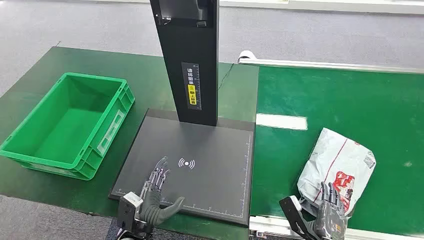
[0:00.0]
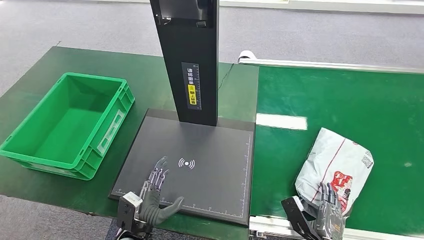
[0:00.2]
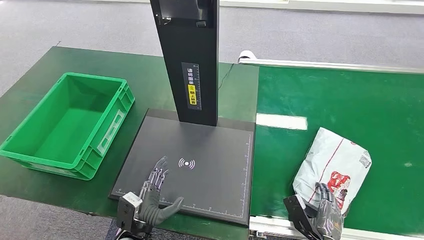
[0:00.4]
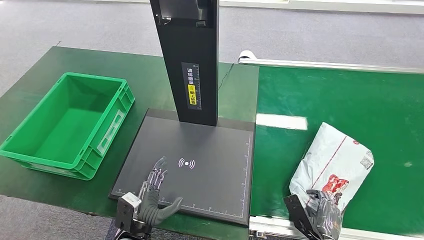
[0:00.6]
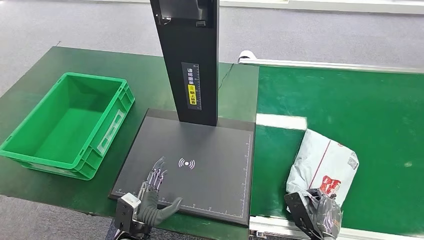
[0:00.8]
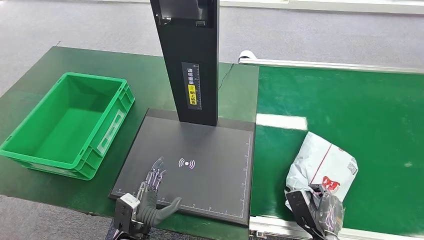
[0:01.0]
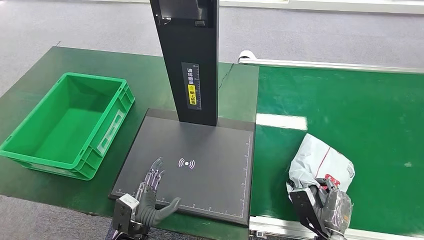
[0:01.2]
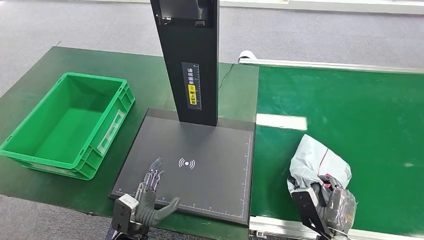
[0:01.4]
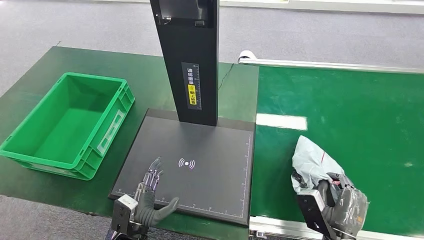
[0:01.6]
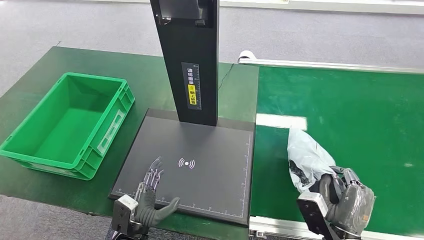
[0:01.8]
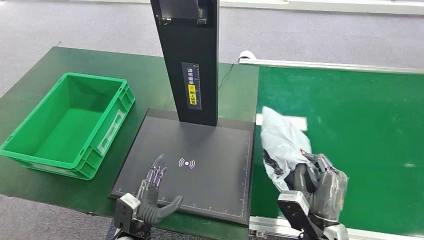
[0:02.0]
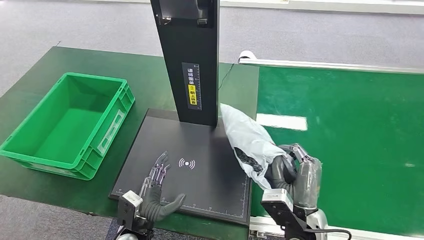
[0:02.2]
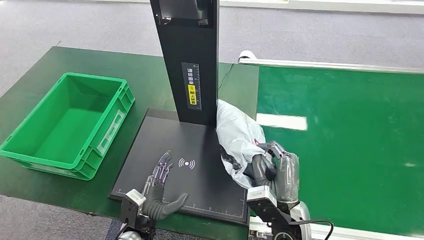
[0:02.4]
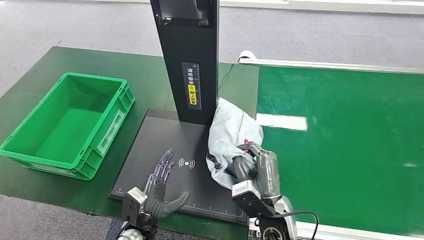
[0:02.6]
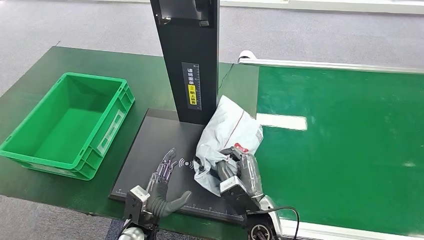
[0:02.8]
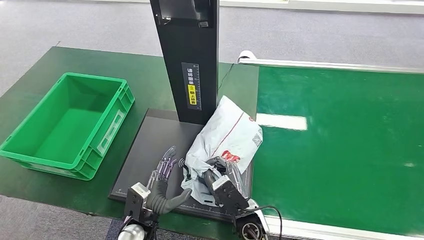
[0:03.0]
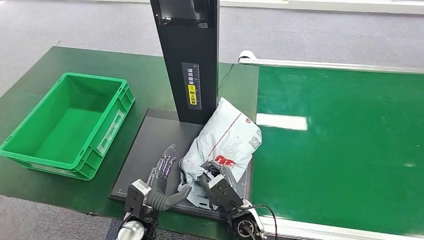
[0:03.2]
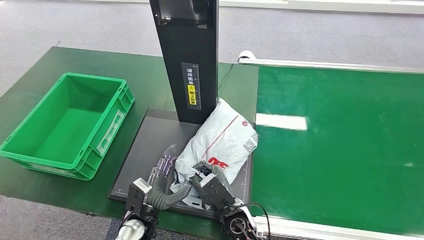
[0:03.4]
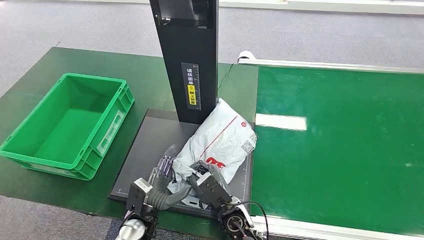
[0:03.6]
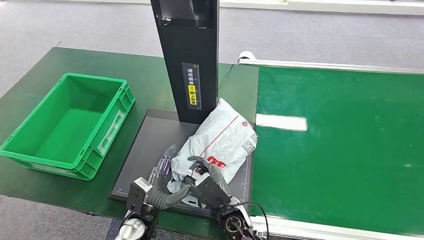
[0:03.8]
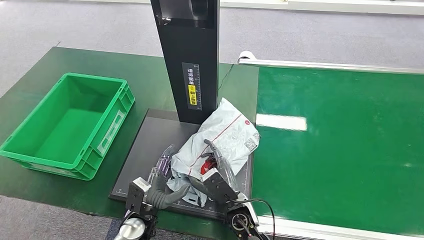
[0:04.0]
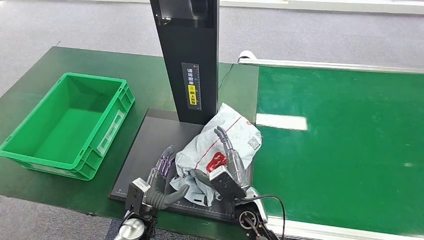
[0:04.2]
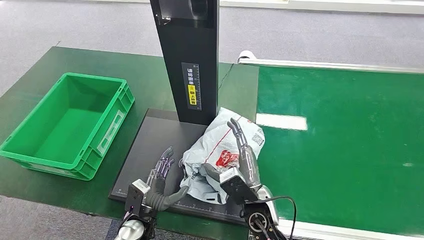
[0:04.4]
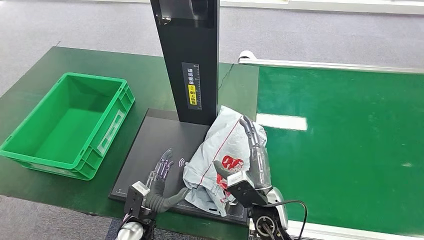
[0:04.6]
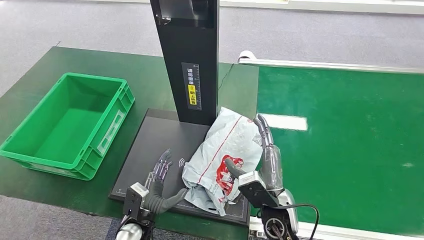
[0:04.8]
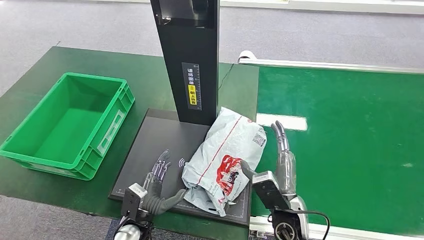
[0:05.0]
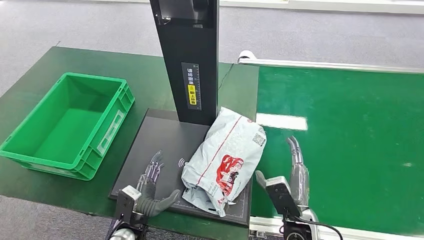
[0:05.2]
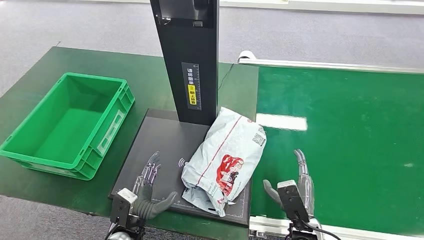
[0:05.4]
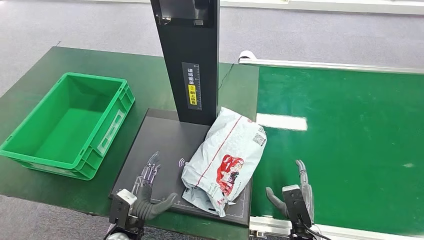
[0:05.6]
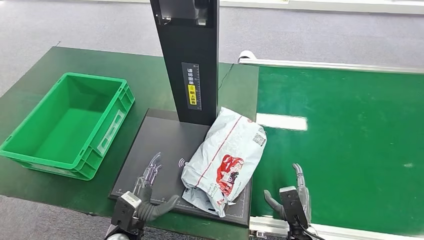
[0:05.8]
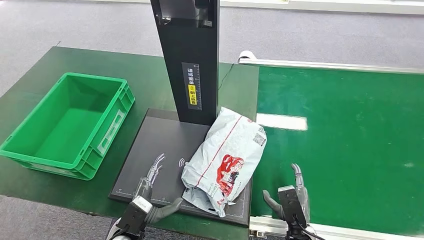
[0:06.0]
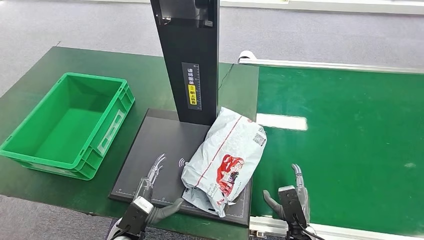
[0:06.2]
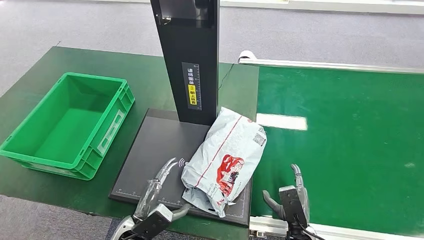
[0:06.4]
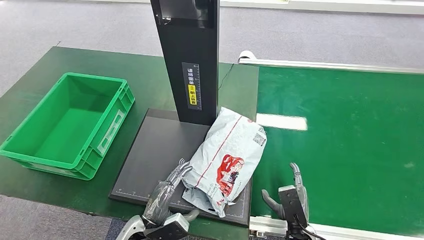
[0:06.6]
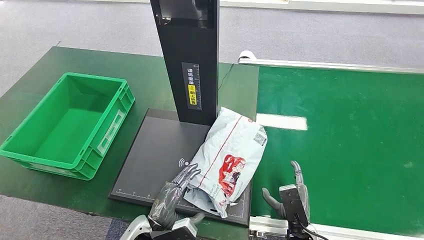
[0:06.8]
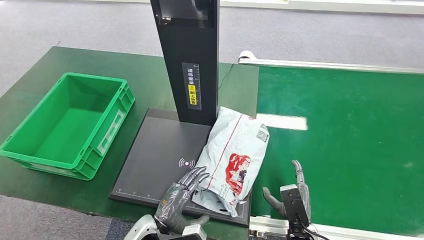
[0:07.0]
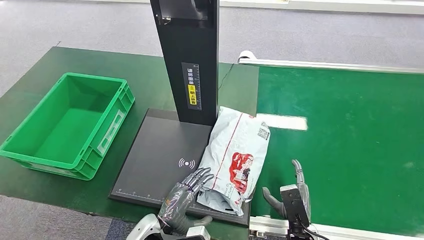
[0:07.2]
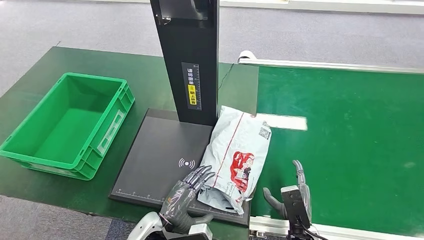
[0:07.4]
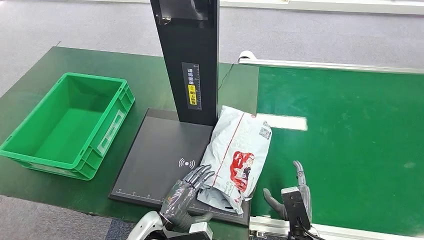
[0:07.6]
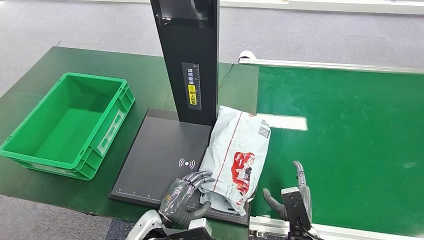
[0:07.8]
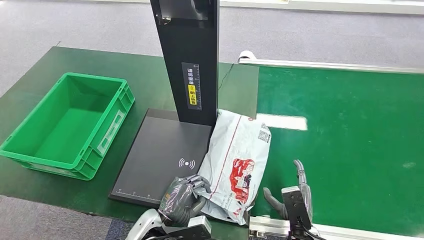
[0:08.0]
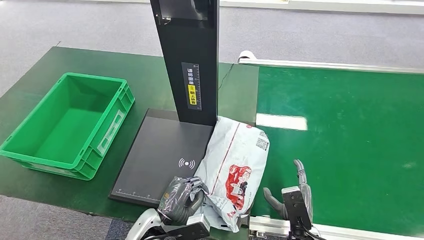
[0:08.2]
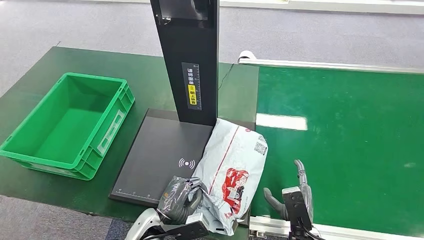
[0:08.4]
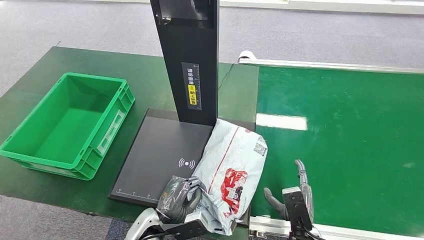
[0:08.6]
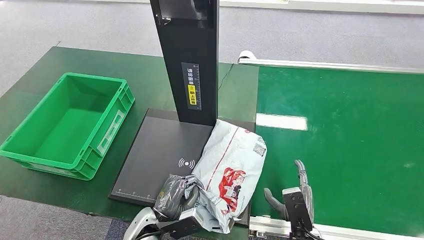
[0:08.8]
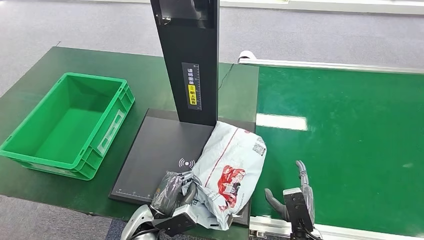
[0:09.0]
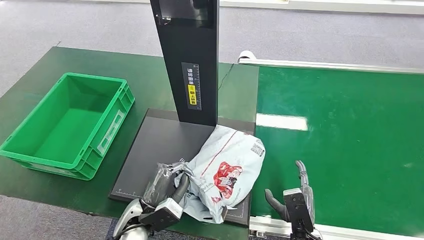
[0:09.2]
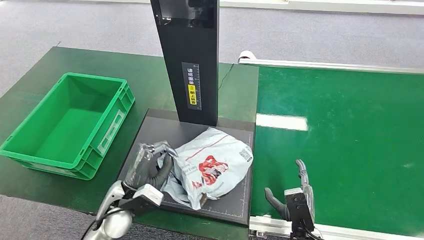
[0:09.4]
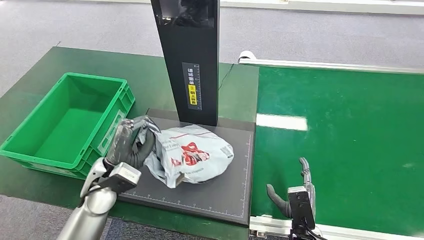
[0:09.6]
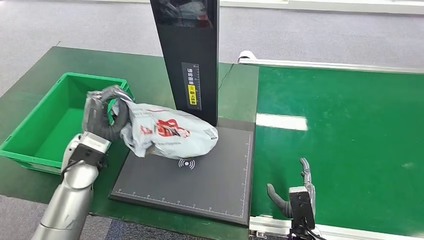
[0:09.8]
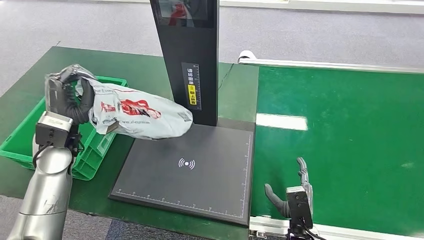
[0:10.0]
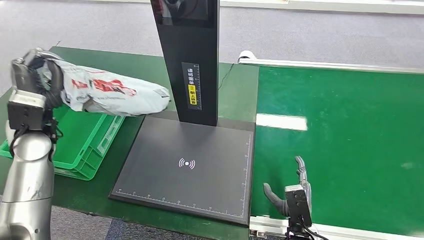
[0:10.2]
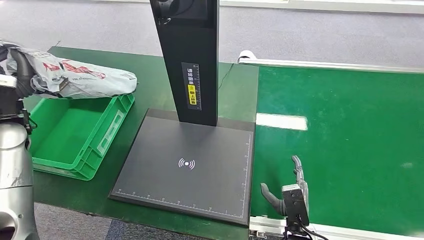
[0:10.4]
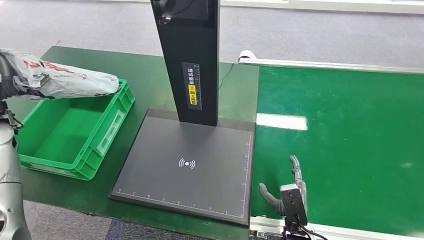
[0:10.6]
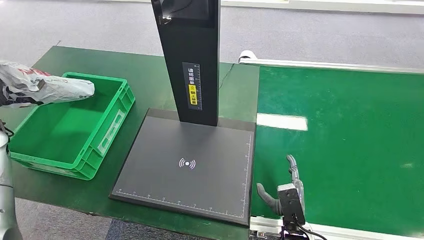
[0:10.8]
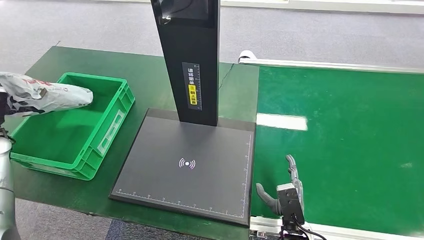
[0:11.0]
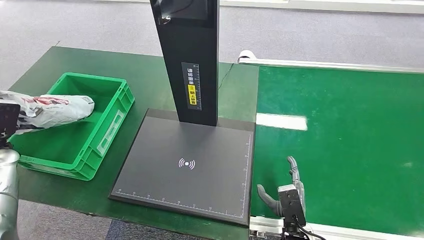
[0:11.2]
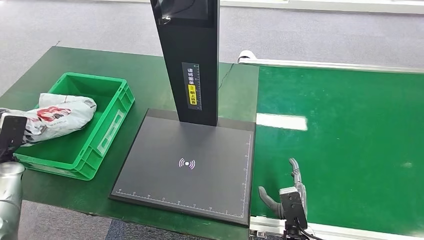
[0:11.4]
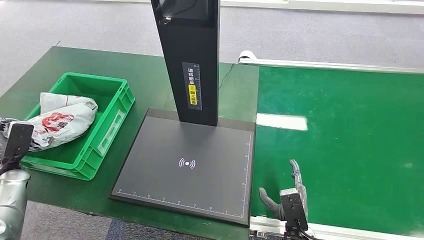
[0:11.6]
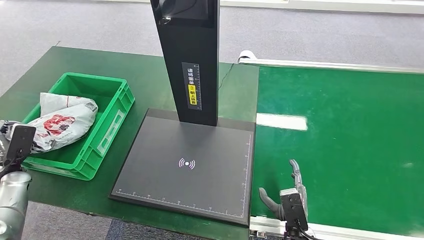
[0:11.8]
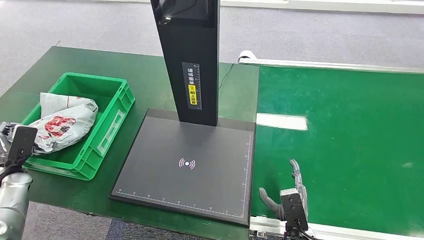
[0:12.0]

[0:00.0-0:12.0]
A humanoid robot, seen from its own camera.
Task of the whole recording: Weigh the package on the weighing device and place it in the left basket.
Step, 0:00.0 to 0:02.0: Pick up the package from the conveyor belt.
Step, 0:02.2 to 0:05.2: Place the package onto the inbound machine.
Step, 0:05.6 to 0:09.8: Pick up the package from the inbound machine.
0:01.6 to 0:03.0: The right hand shifts roughly 20 cm to the left.
0:03.0 to 0:04.4: The hands make only small movements.
0:04.4 to 0:06.0: The right hand goes approximately 15 cm to the right, downward and backward.
0:06.0 to 0:07.6: The left hand is displaced to the right by approximately 5 cm.
0:07.6 to 0:09.0: There are only small adjustments of the hands.
0:09.0 to 0:10.4: The left hand is displaced to the left, upward and forward by approximately 40 cm.
0:10.4 to 0:12.0: The left hand goes some 20 cm downward.

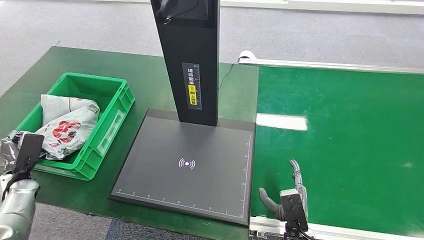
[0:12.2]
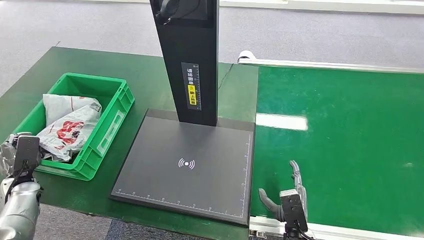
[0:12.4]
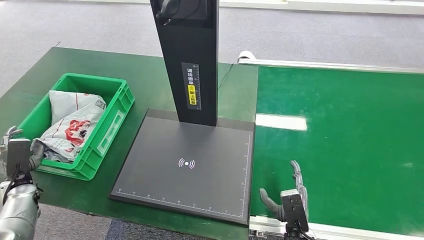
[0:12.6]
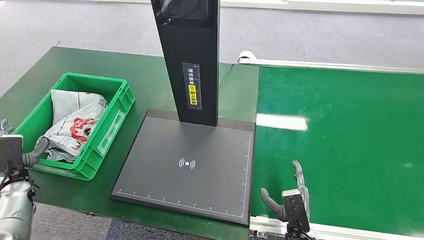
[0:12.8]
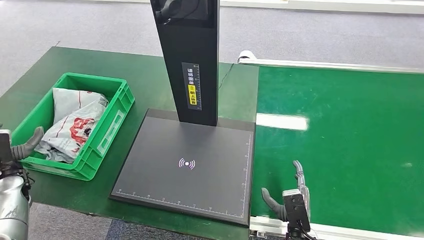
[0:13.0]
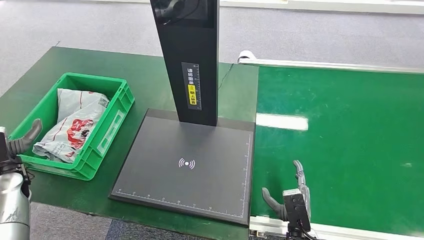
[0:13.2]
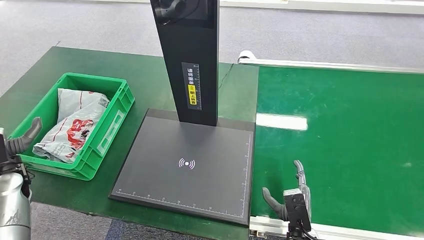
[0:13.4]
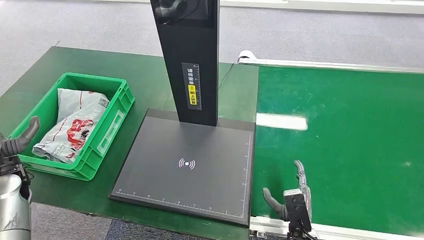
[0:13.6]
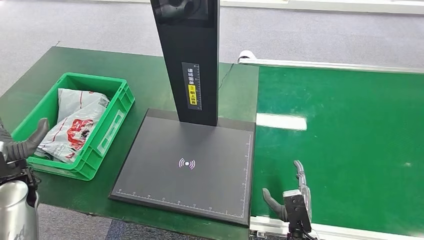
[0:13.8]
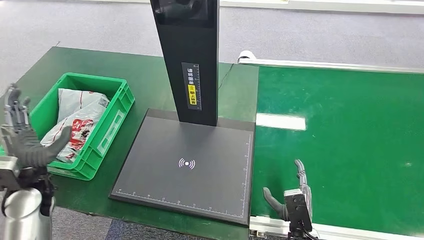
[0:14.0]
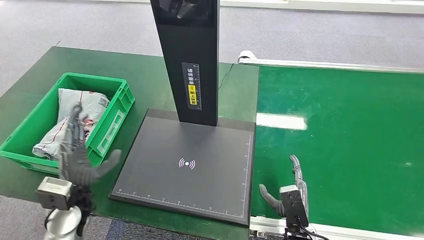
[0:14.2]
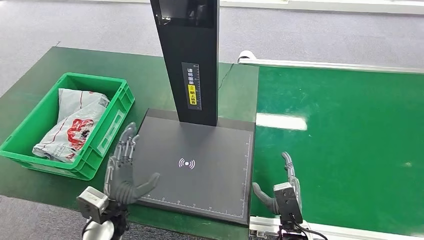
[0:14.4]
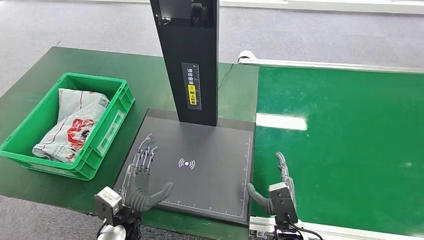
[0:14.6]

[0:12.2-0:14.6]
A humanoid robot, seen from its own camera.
Task of the whole recording: Weigh the package on the weighing device and place it in the left basket.
Step, 0:12.2 to 0:14.6: Place the package into the parcel locker.
0:12.2 to 0:13.4: The left hand shifts some 5 cm upward.
0:13.4 to 0:14.6: The left hand goes approximately 30 cm to the right.
